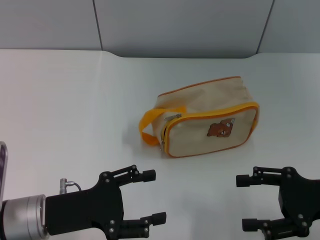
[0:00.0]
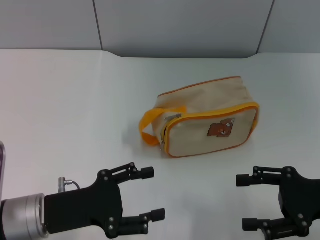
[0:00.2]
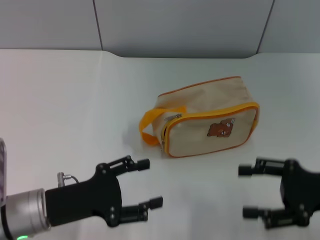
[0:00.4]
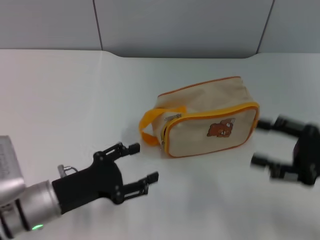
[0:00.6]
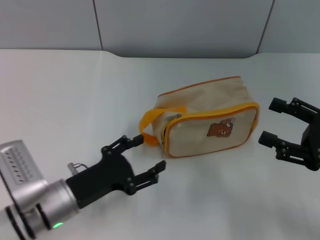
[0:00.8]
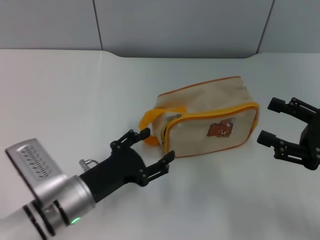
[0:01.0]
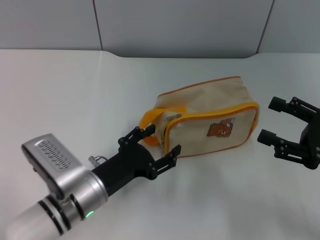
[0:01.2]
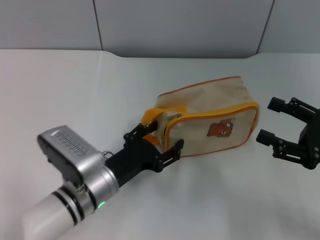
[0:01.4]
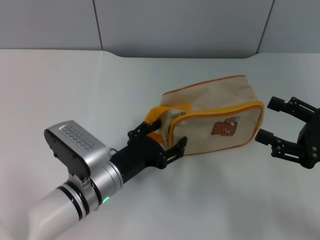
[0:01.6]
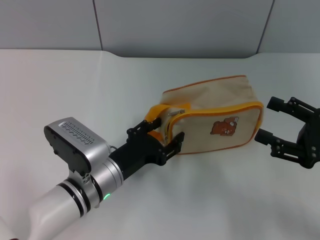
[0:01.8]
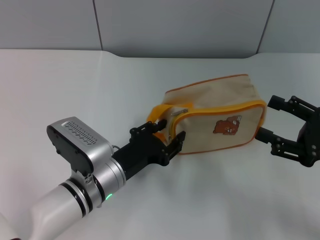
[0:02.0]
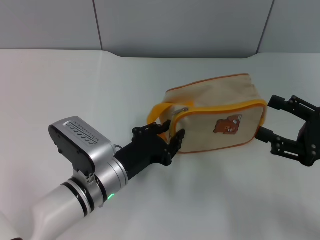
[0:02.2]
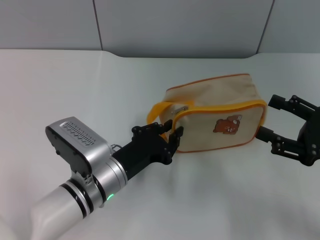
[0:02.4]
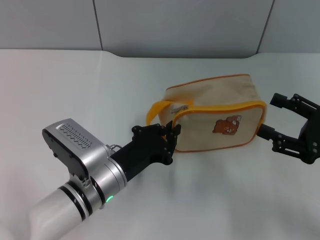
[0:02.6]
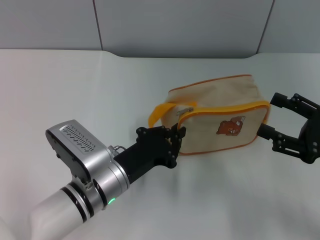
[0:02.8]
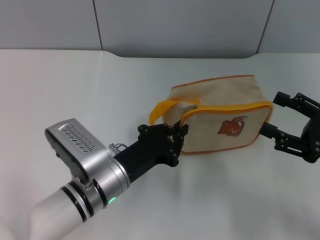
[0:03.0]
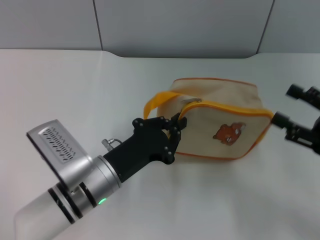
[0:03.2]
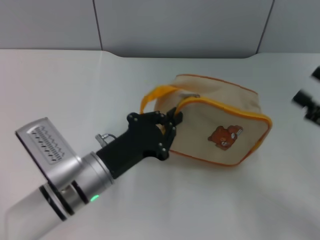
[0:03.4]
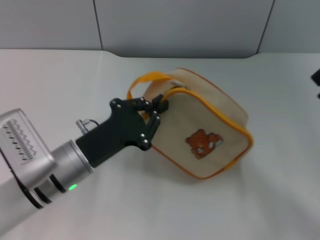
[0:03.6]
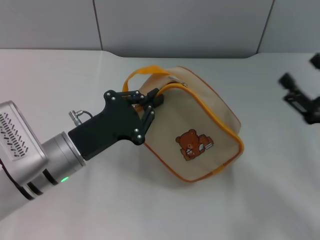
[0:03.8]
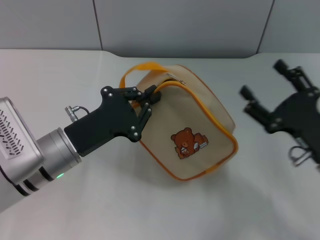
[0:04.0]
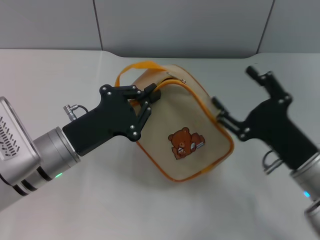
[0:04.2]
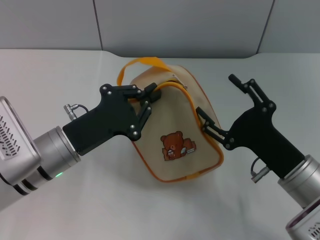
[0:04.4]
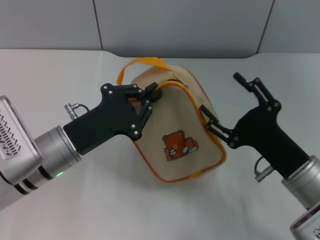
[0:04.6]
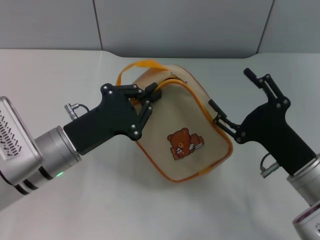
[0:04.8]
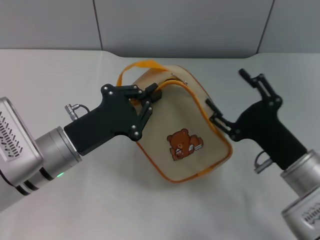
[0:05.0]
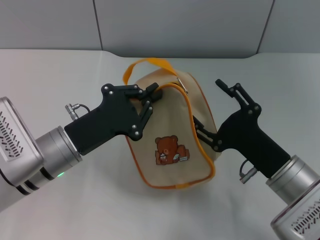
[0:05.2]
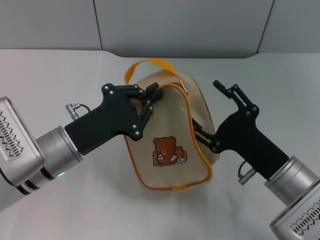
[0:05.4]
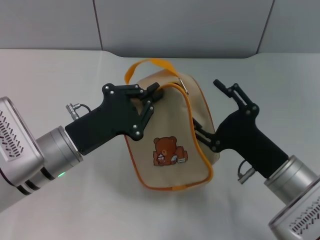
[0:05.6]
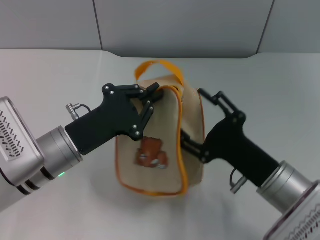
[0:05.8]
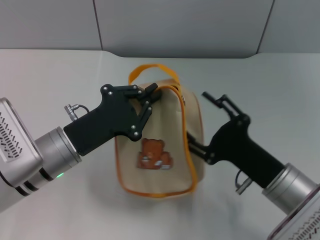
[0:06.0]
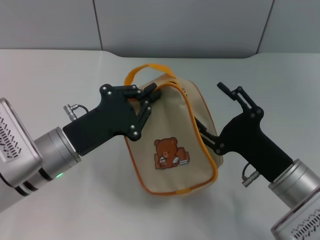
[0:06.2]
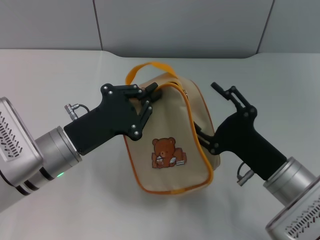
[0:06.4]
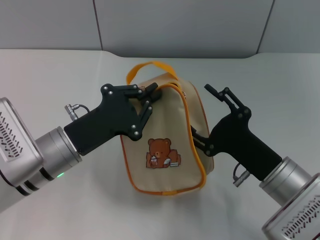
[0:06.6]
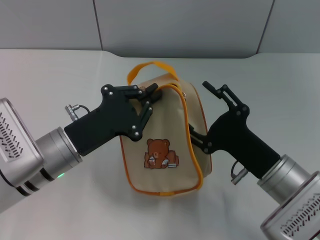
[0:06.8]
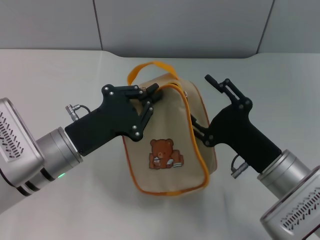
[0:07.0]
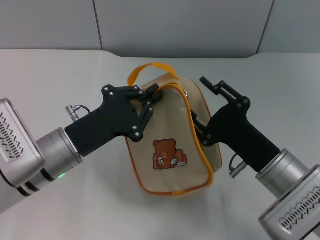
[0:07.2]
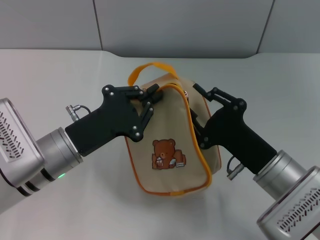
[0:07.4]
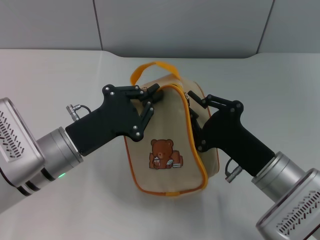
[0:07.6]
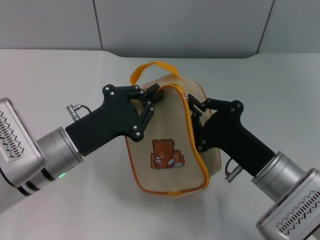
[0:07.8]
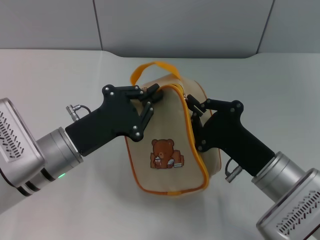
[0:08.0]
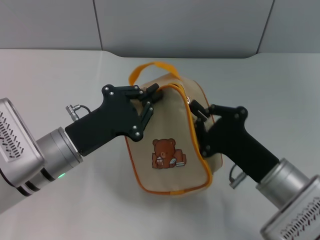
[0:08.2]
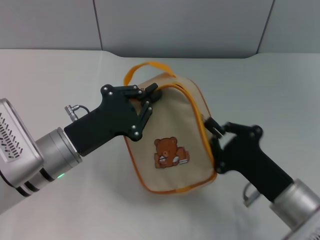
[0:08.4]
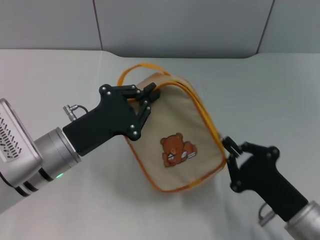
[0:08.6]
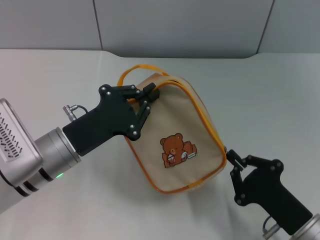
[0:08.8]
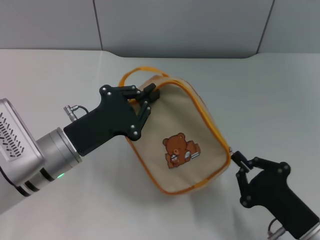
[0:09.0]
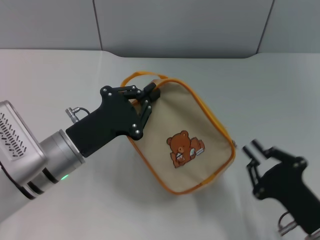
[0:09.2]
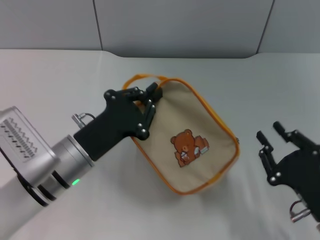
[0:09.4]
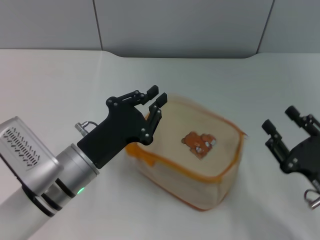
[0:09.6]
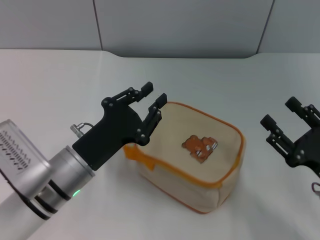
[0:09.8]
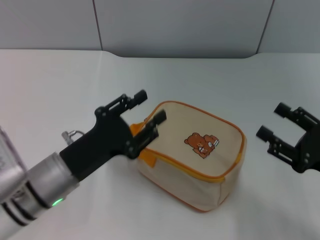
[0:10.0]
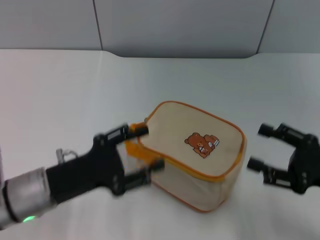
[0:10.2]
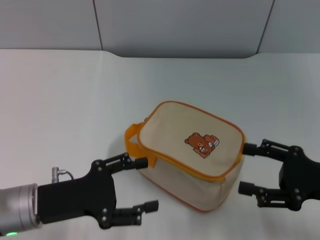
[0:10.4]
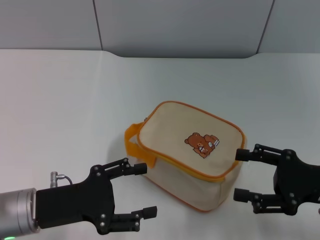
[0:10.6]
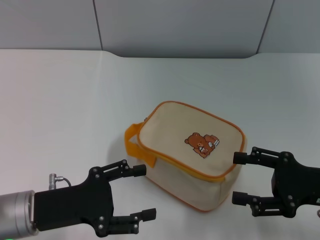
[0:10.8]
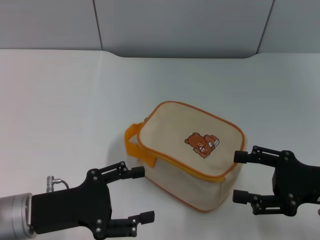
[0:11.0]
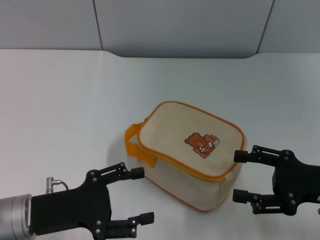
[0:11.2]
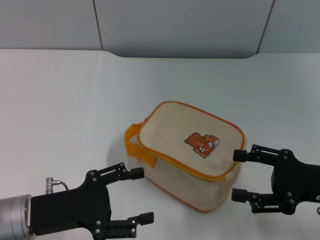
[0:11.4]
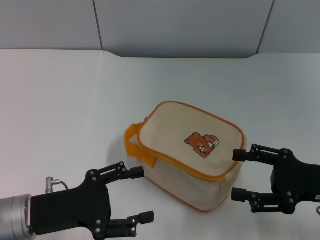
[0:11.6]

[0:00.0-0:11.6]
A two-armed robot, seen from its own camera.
Step, 0.0 to 3.8 s: Pick up the bag with left gripper.
Step, 4.0 to 9.2 s: Unzip the zipper of bag with right gripper.
Step, 9.4 to 9.6 s: Place the bag on the table with left gripper.
0.0 to 1.4 s: The left gripper is displaced to the right by roughly 10 cm.
1.4 to 2.8 s: The left gripper closes up.
2.8 to 4.4 s: The right gripper travels to the left by about 10 cm. Meanwhile the left gripper is displaced to the left and upward by approximately 10 cm.
5.8 to 7.2 s: The grippers move only a little.
7.2 to 8.8 s: The right gripper travels backward by approximately 10 cm, and closes up.
8.8 to 10.2 s: The right gripper travels to the right, upward and forward by some 15 cm, and opens its fingers; the left gripper shifts by about 5 cm, and opens.
10.2 to 11.6 s: The grippers make only small movements.

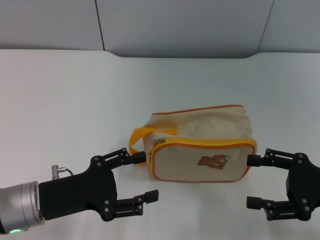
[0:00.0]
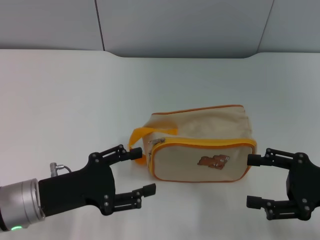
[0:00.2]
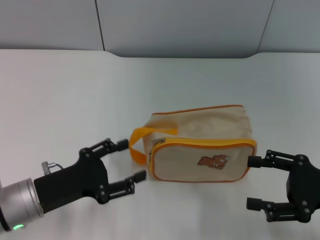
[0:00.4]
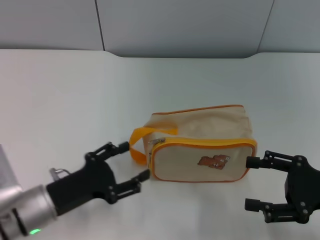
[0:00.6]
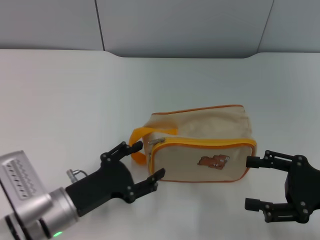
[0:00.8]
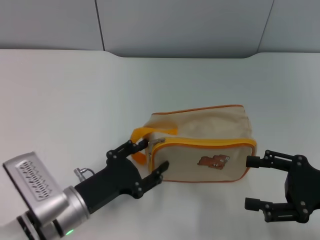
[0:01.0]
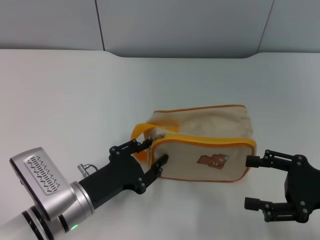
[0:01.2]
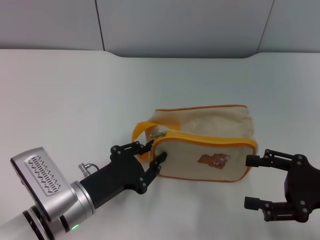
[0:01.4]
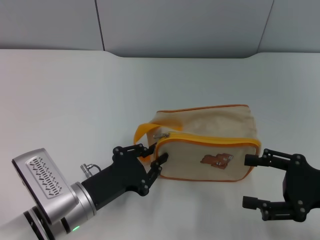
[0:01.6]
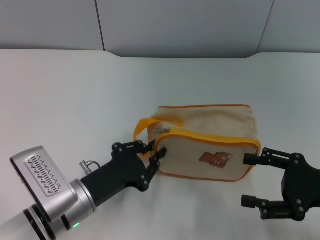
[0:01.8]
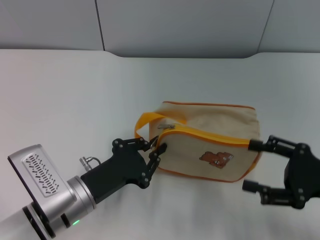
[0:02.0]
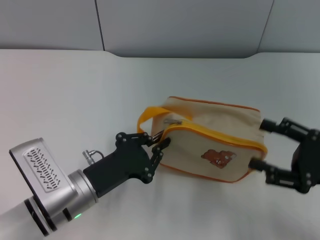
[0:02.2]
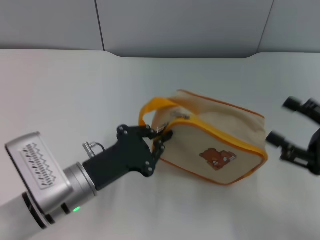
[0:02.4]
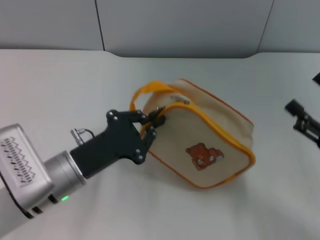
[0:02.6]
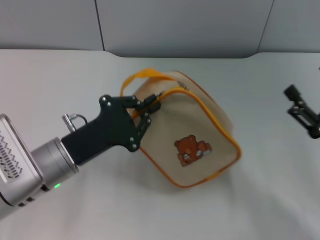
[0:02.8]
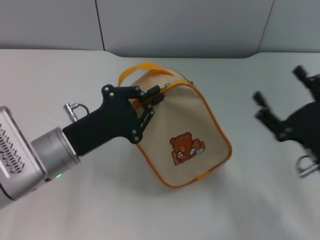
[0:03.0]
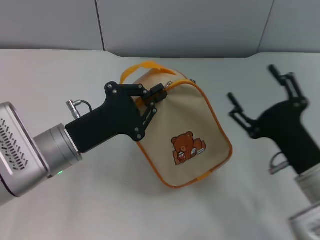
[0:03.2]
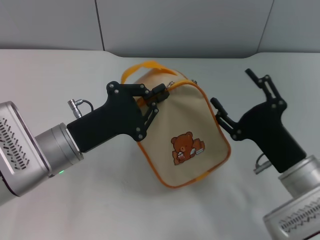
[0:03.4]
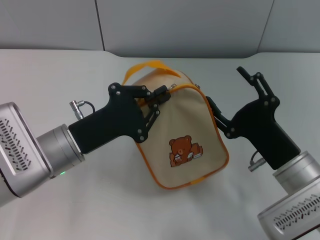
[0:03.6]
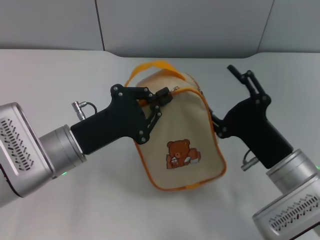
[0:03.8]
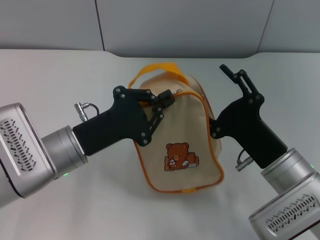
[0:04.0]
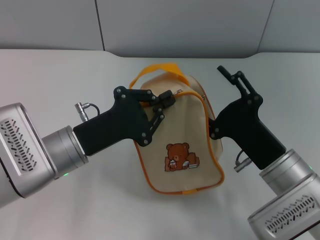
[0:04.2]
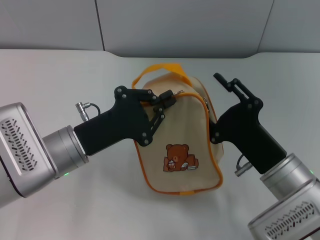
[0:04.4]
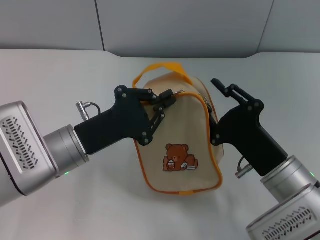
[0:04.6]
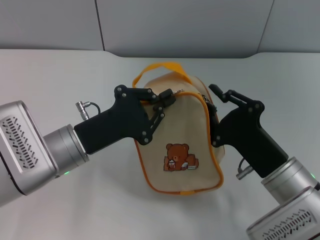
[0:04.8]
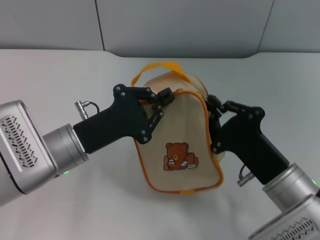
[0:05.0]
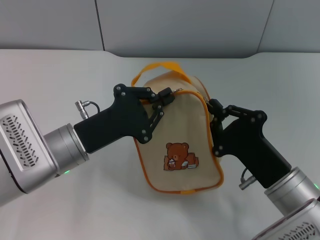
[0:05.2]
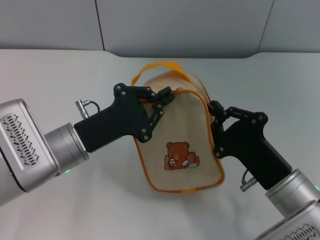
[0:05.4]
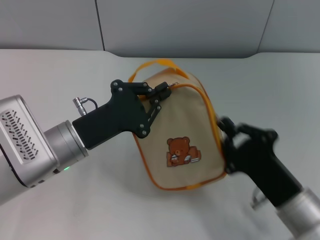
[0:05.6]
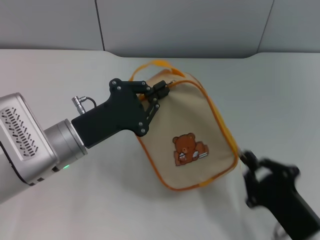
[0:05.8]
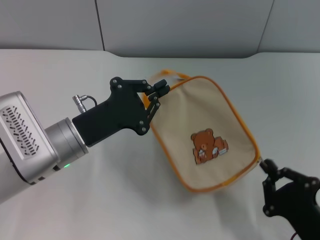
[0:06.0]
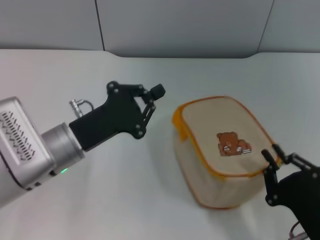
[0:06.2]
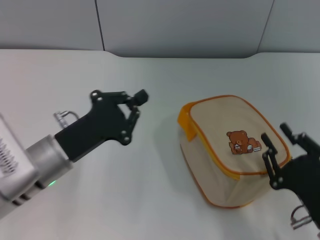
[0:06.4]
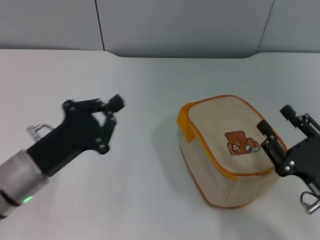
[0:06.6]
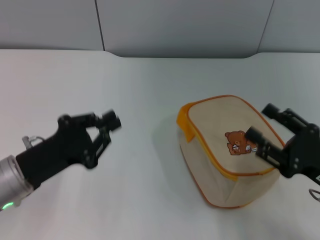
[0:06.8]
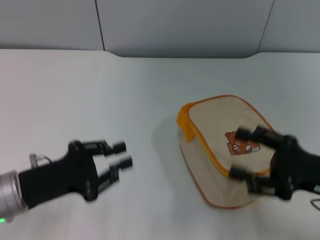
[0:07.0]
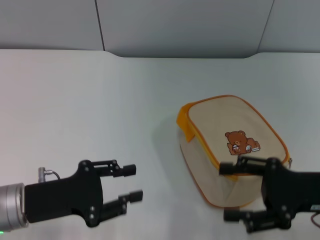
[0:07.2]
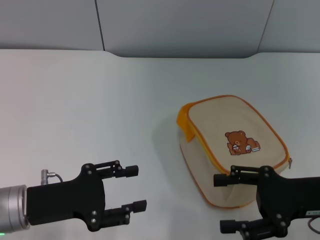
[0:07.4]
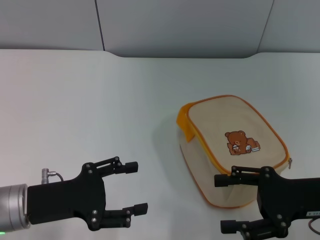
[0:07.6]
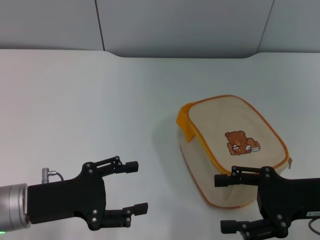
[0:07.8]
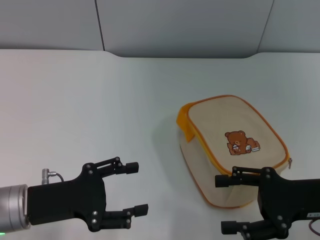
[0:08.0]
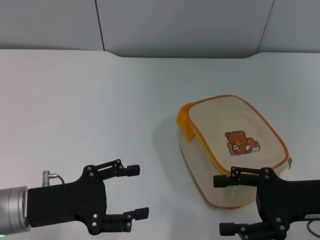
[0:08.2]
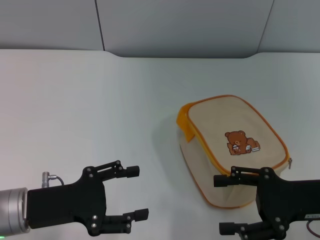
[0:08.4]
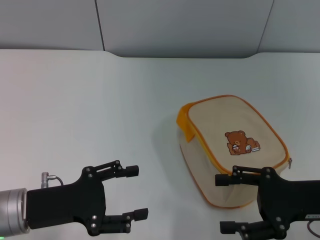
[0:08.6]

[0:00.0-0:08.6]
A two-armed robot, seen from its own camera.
Step, 0.0 to 2.6 s: Pick up the bag with left gripper.
Step, 3.0 to 6.2 s: Unzip the zipper of bag with right gripper.
0.0 to 1.4 s: The left gripper heads to the right, covering some 5 cm, and closes up.
1.4 to 2.8 s: The left gripper heads upward, covering about 5 cm, and closes its fingers.
2.8 to 4.4 s: The right gripper goes about 10 cm to the left.
4.4 to 5.8 s: The right gripper goes about 10 cm backward, and closes up.
5.8 to 7.2 s: The left gripper shifts some 10 cm to the left and backward, while the right gripper goes roughly 15 cm upward, forward and to the right, and opens its fingers.
7.2 to 8.6 s: The left gripper opens up.

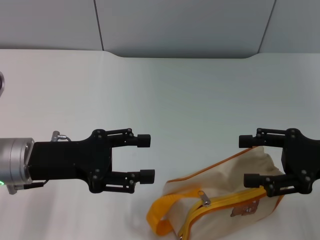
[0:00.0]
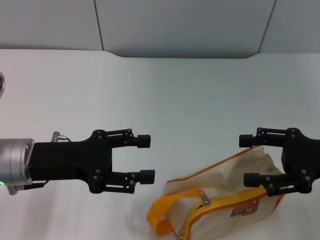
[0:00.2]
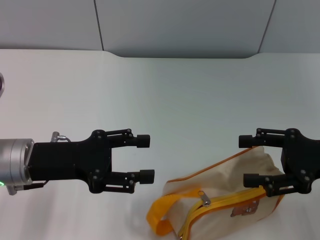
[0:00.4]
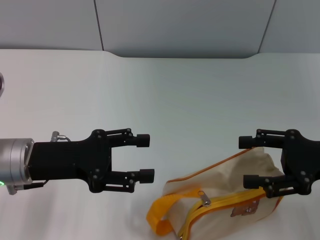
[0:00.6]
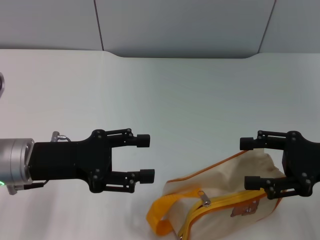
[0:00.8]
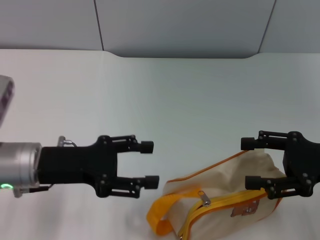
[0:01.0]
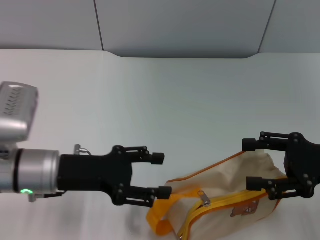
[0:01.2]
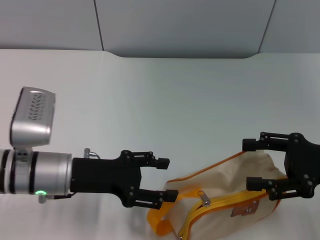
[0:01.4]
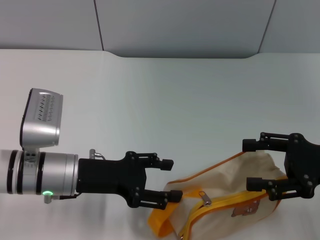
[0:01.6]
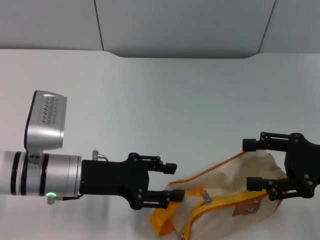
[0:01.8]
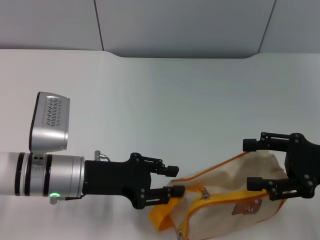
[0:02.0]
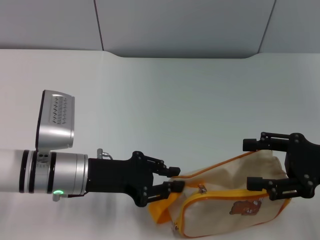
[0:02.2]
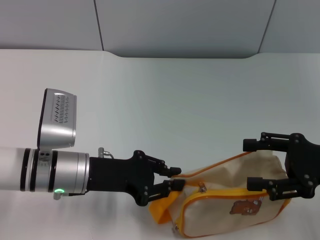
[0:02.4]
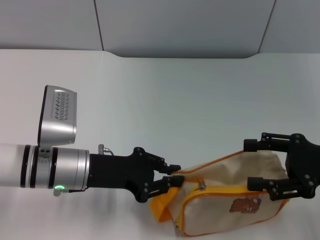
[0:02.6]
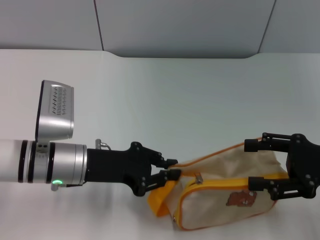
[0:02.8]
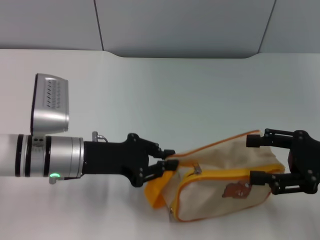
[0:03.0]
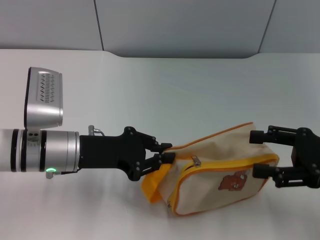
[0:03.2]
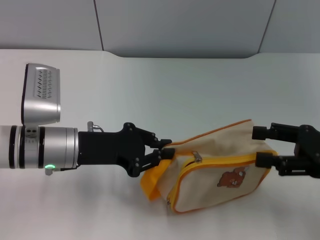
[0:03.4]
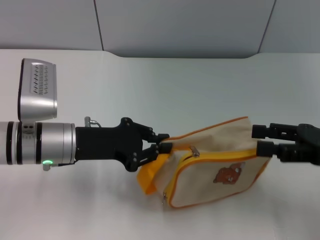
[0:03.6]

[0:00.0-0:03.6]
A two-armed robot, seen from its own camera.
0.0 to 1.8 s: The left gripper ends up approximately 5 cm from where it was.
1.8 to 3.6 s: The left gripper closes.
